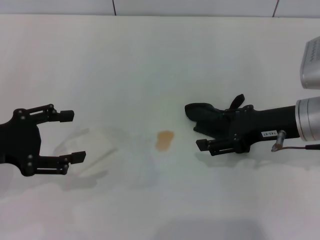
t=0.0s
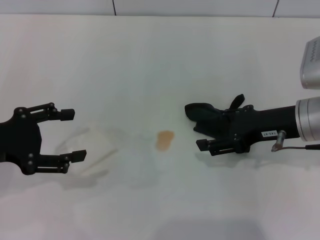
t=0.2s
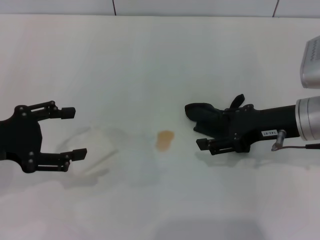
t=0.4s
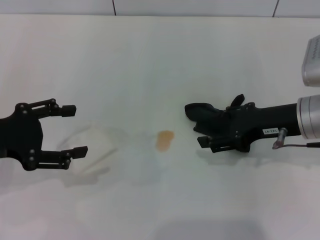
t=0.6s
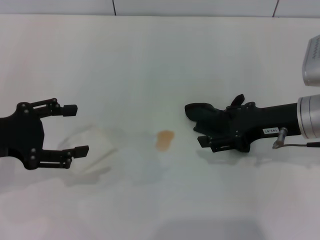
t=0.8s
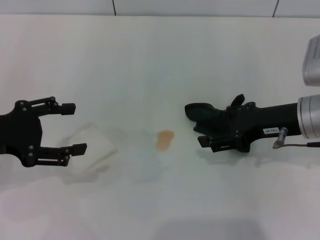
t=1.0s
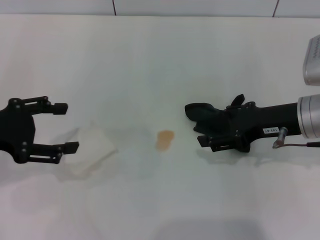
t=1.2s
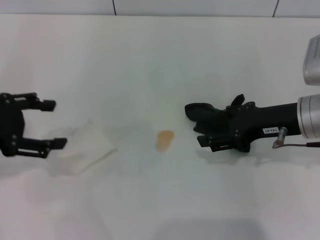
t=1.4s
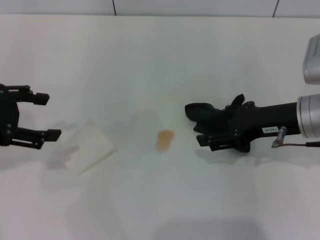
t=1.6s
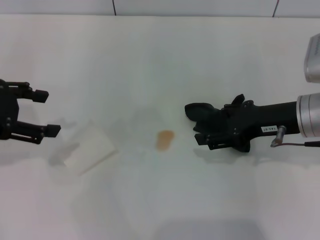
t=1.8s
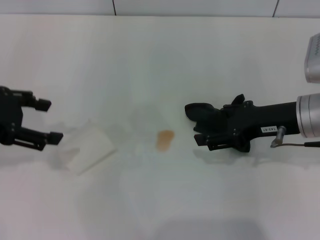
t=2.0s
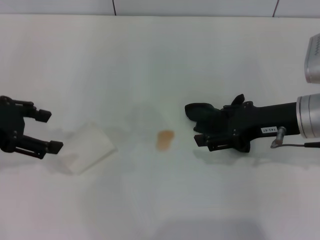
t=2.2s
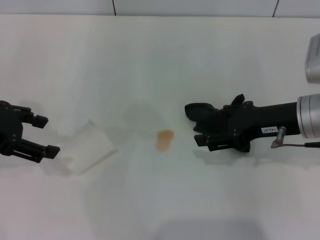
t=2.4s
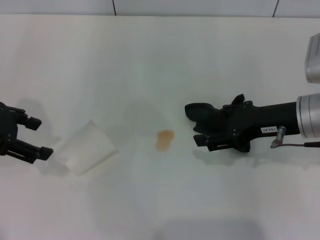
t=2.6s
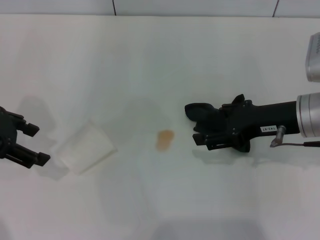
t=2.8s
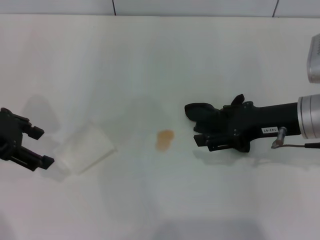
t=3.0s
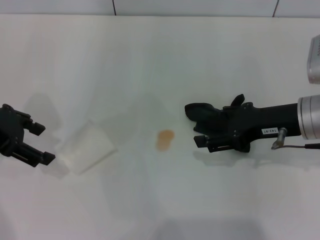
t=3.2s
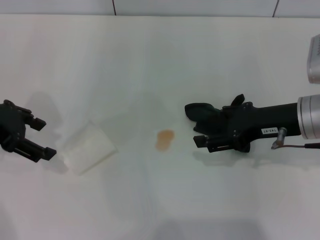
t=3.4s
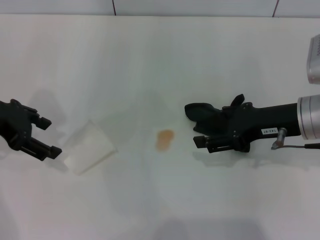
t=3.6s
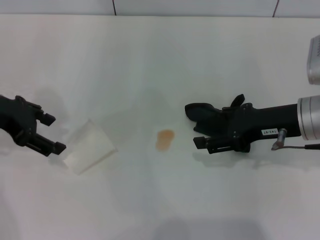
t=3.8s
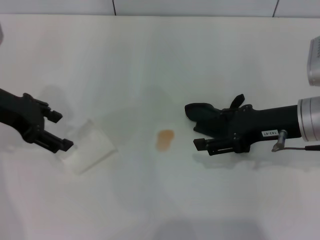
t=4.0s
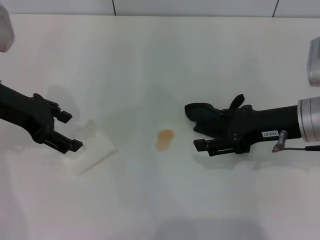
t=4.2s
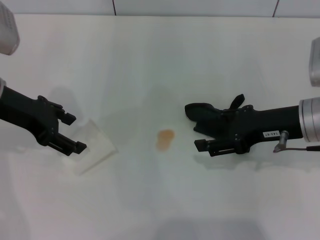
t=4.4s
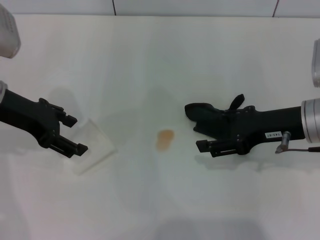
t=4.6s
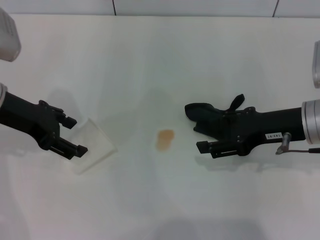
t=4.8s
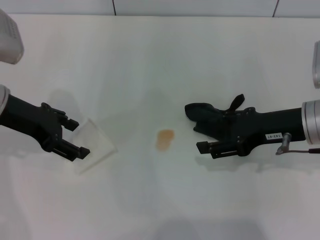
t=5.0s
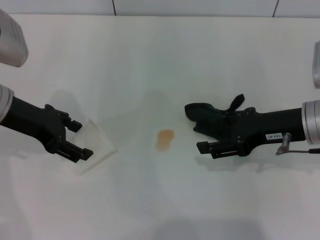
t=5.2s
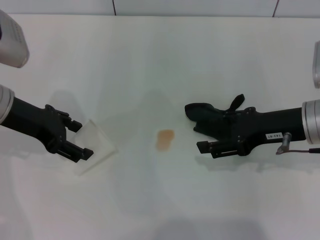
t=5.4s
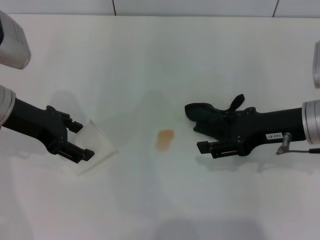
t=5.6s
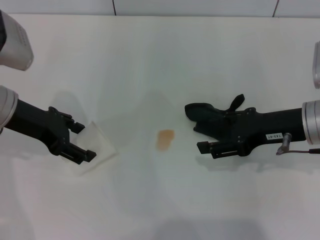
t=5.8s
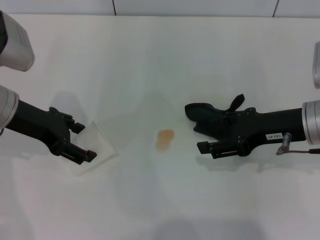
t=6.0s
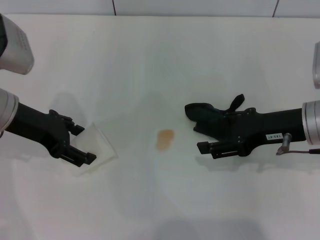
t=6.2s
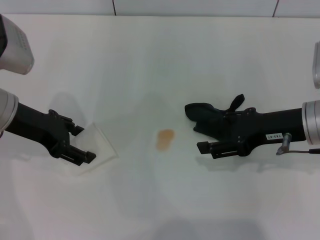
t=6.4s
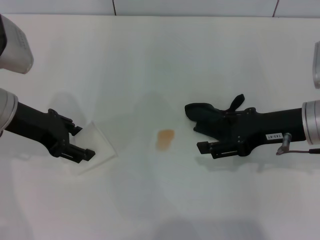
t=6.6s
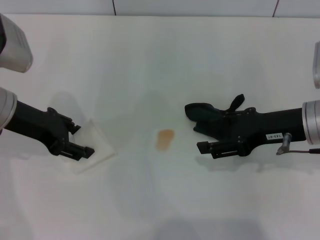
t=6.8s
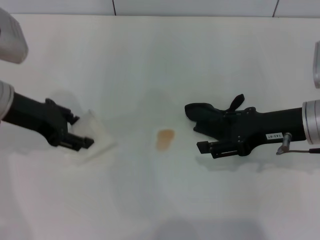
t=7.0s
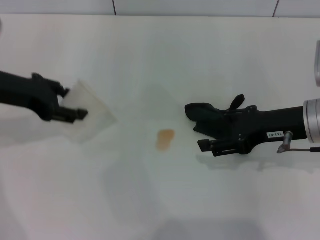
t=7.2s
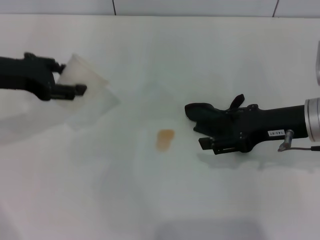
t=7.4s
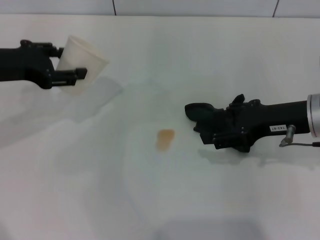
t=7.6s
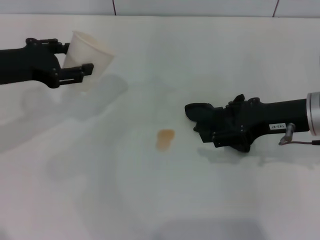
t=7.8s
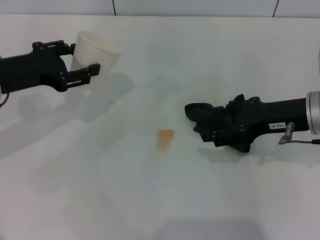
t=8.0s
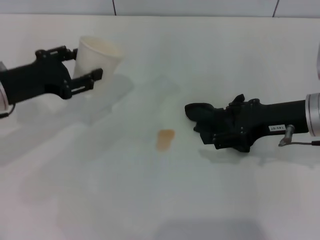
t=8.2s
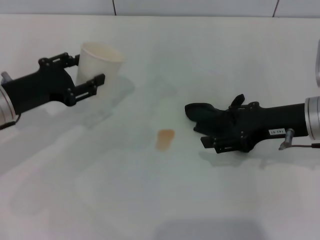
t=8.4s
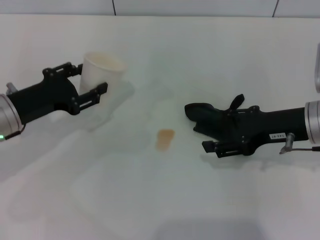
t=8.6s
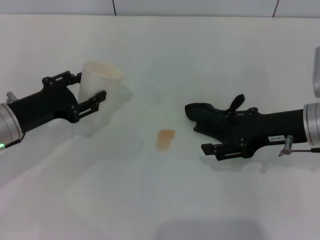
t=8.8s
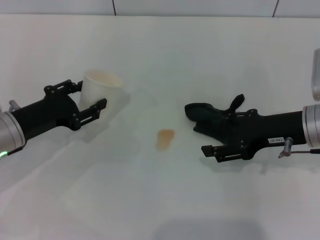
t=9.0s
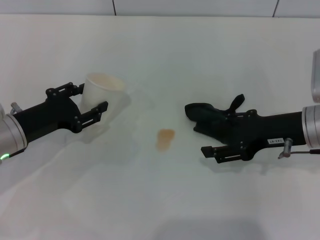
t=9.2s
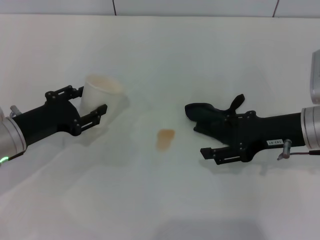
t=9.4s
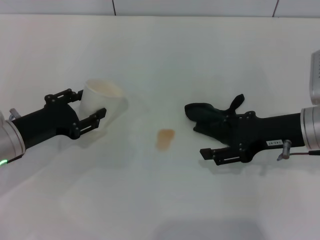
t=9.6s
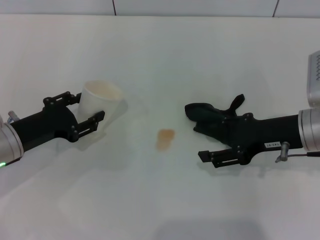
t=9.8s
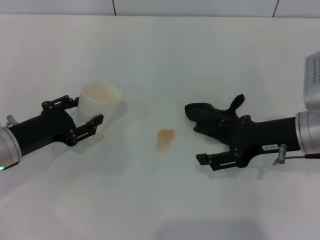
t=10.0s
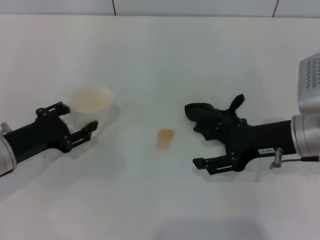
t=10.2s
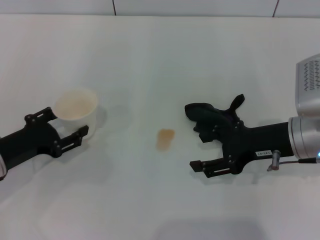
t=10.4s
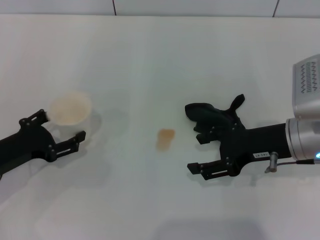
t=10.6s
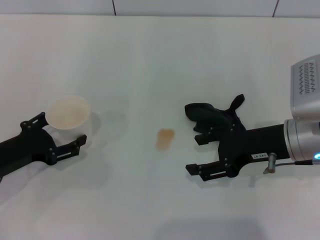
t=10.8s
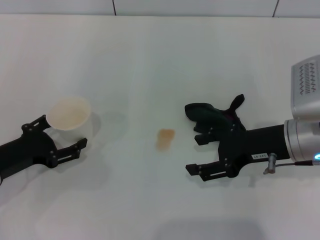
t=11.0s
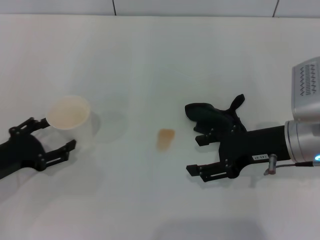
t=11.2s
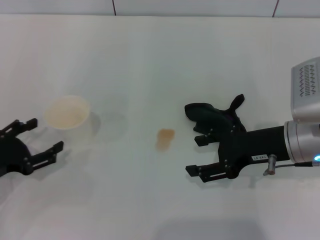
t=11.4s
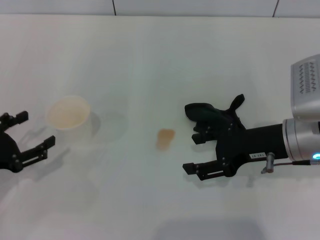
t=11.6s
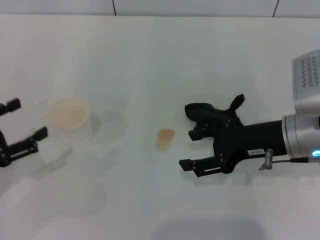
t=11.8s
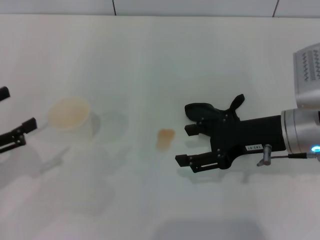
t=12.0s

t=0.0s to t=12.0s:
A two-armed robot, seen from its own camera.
Step, t=0.0s to t=6.4s: Grasp the paper cup with the left gripper.
Step, t=6.8s to t=11.4s: Stand the paper cup upright with the left gripper.
t=0.0s to t=1.6s: The left gripper changes place by roughly 5 cm.
t=3.0s to t=4.4s: The left gripper shifts by about 5 cm.
t=4.4s to t=6.0s: The grippers stay close to where they were, moving slightly.
t=6.0s to t=7.6s: The left gripper closes up.
t=7.6s to t=9.0s: The left gripper travels downward by approximately 10 cm.
t=9.0s to t=10.4s: The left gripper changes place by about 5 cm.
t=10.4s to t=12.0s: The left gripper goes about 10 cm upward, to the left and backward, and opens.

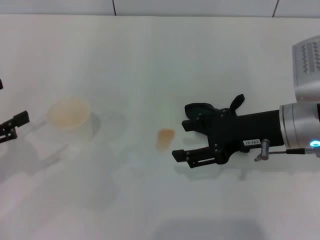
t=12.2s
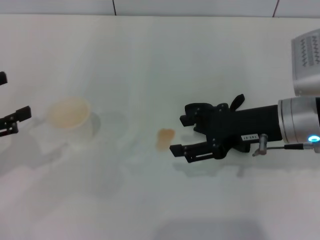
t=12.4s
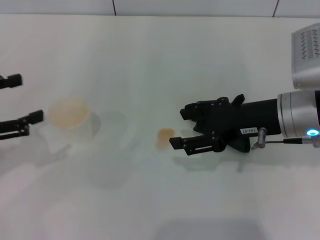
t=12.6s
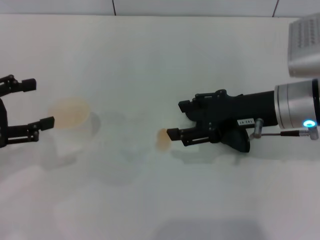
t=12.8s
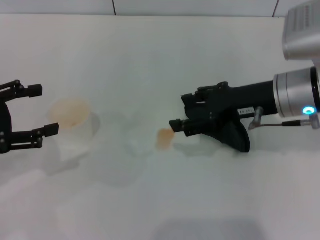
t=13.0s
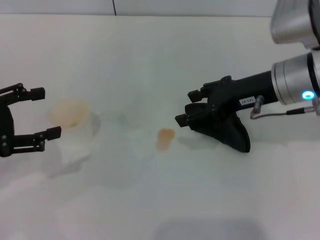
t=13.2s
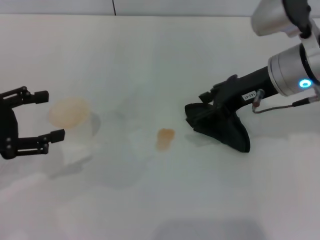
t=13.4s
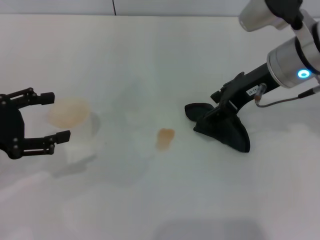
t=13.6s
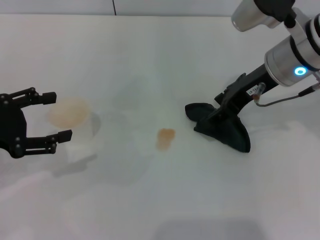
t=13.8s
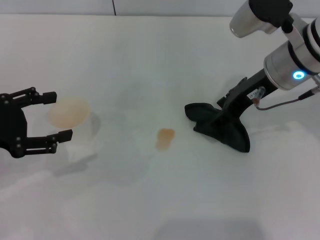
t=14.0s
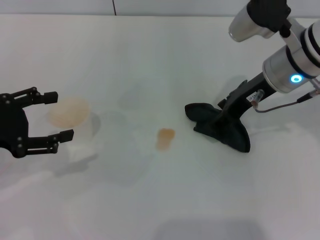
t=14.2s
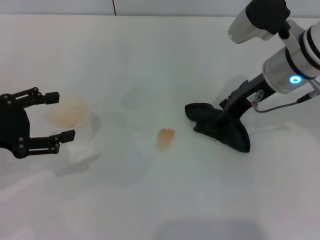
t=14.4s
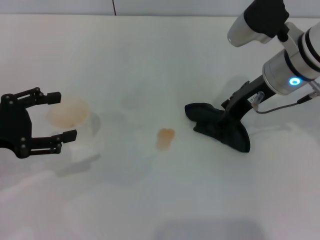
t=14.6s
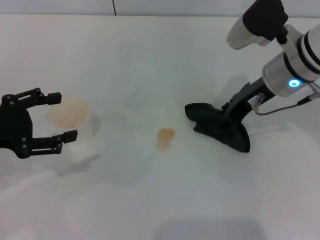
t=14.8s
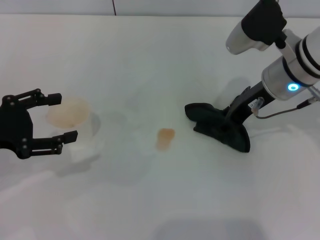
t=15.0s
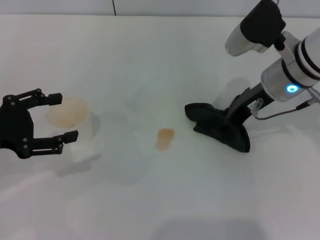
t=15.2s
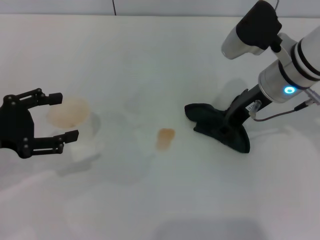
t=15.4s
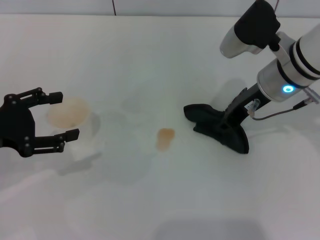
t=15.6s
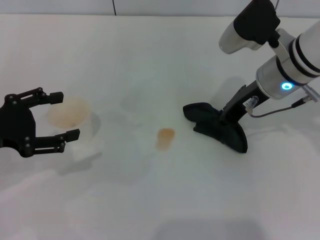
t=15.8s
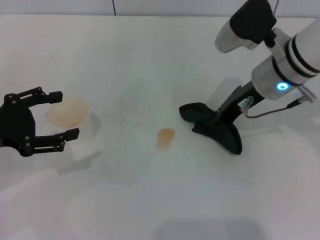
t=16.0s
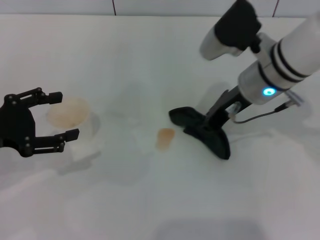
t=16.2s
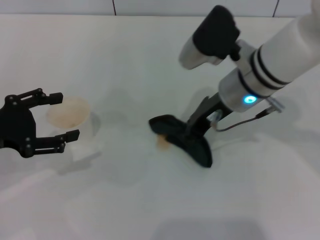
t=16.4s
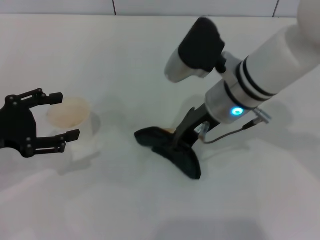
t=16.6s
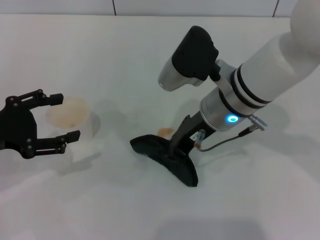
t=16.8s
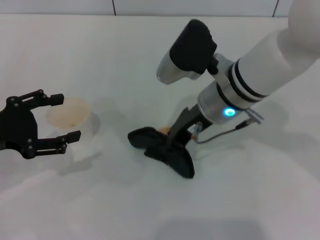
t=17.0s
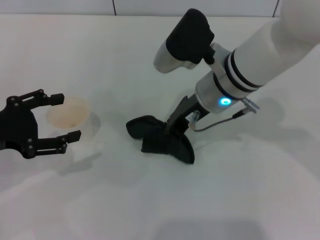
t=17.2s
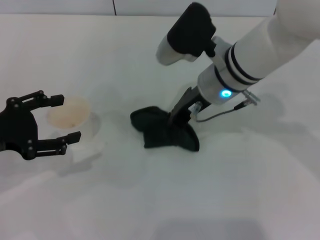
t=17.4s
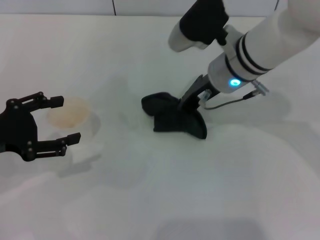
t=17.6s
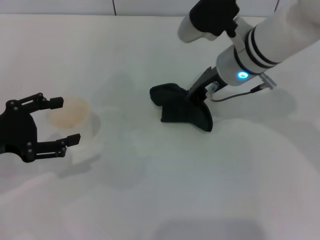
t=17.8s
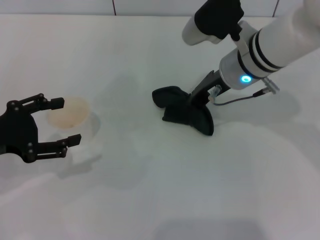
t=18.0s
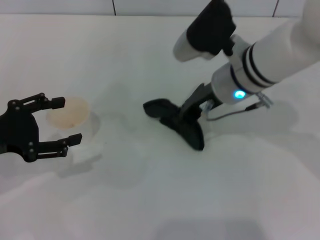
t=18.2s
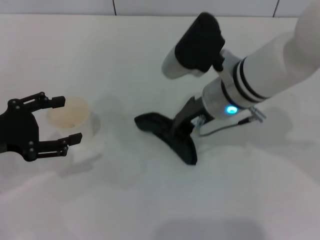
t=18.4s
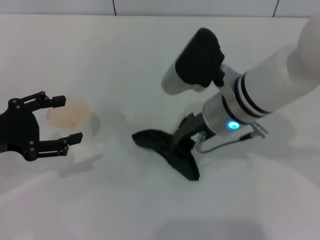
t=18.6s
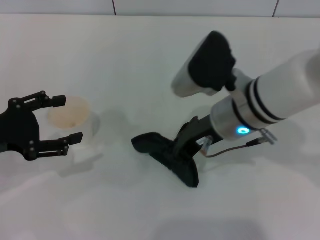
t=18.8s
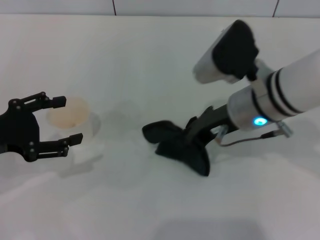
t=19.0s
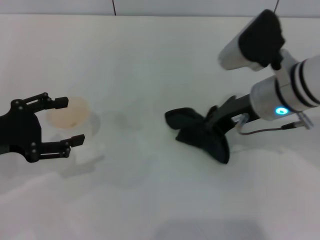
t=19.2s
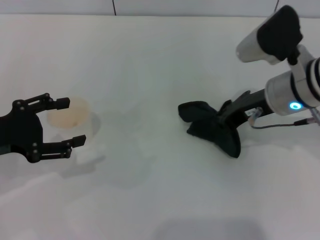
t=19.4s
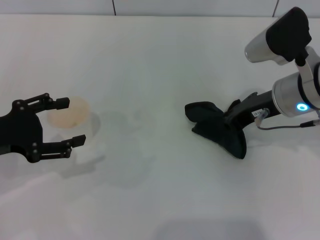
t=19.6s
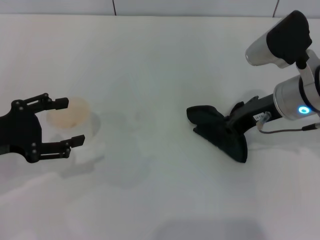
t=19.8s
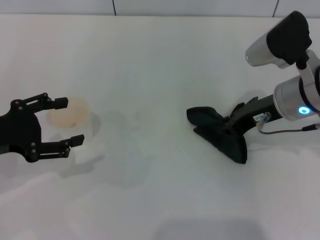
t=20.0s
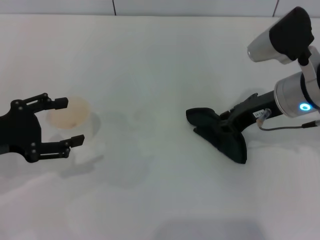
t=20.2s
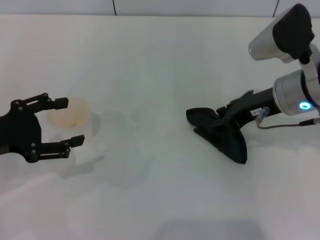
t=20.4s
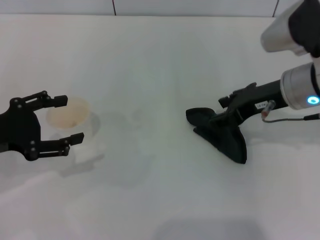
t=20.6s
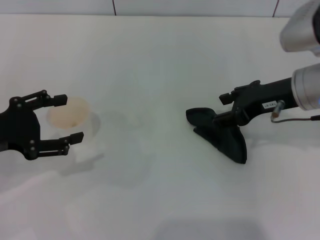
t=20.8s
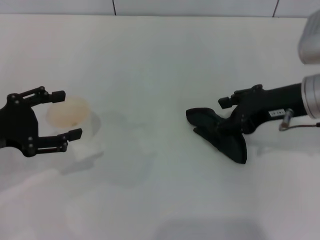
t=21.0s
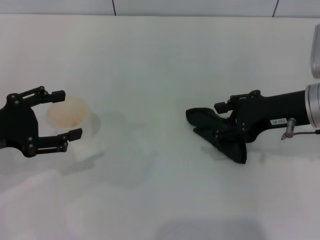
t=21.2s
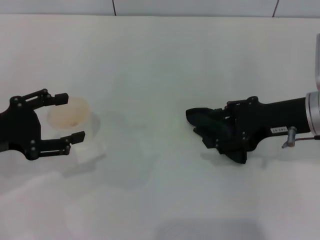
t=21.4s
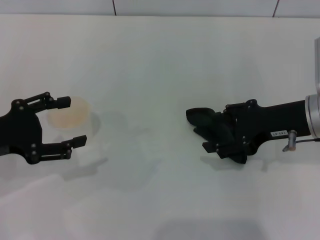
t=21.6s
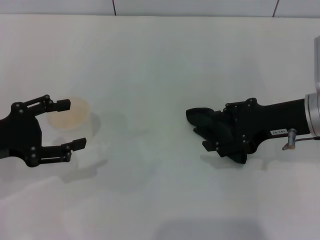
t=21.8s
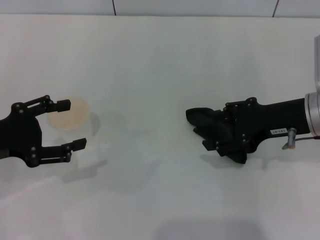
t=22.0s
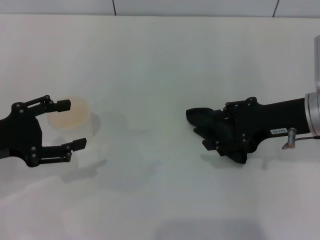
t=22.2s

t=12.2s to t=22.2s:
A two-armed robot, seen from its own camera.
Step, t=12.2s to t=15.8s: Grasp the rag with the right gripper.
Step, t=16.0s to t=20.0s: Wipe the stains off the table with the right gripper.
Step, t=20.2s to t=21.6s: Place the rag on the table with the right gripper.
t=12.2s to t=13.6s: The left gripper ends up roughly 5 cm from where it was. The right gripper moves forward and upward, about 10 cm.
t=13.6s to t=15.0s: There are only small adjustments of the grippers.
t=15.0s to t=16.4s: The right gripper shifts roughly 5 cm to the left, and closes its fingers.
t=16.4s to t=18.0s: The grippers make only small movements.
t=18.0s to t=19.4s: The right gripper travels to the right by some 5 cm.
t=19.4s to t=20.8s: The right gripper opens up.
t=20.8s to t=22.2s: The grippers make only small movements.
